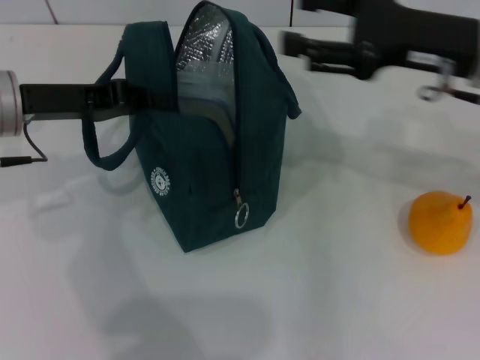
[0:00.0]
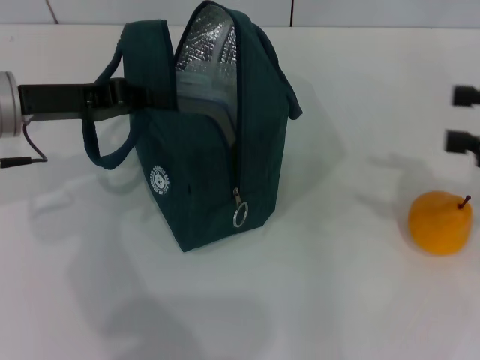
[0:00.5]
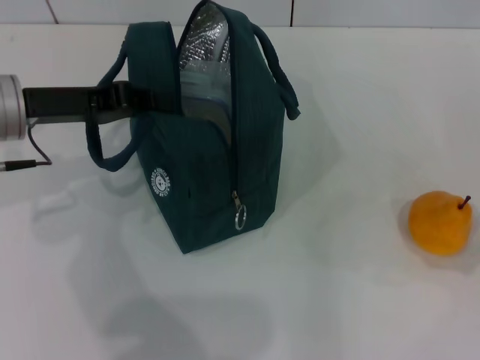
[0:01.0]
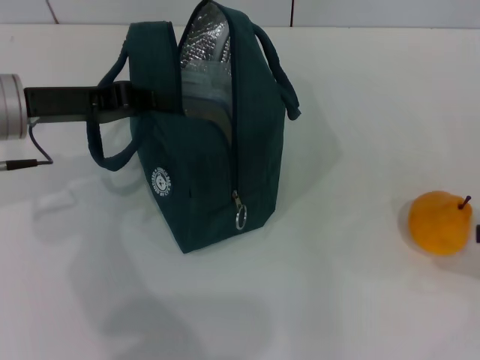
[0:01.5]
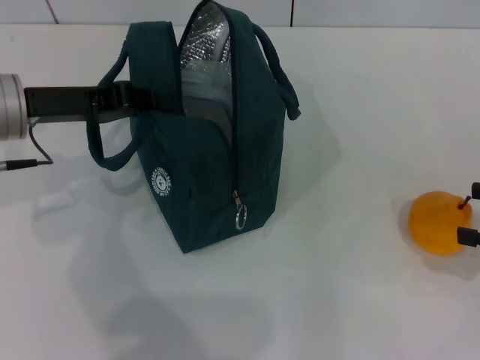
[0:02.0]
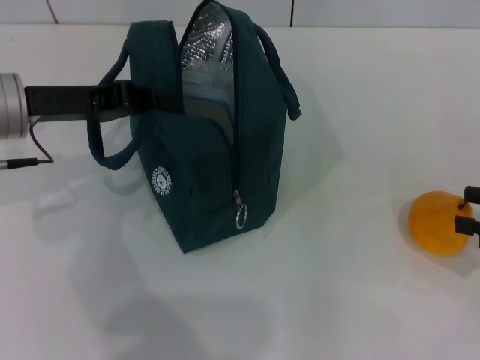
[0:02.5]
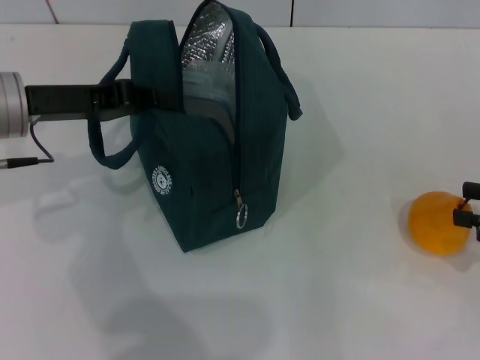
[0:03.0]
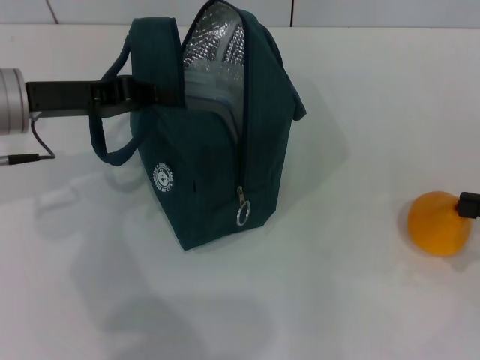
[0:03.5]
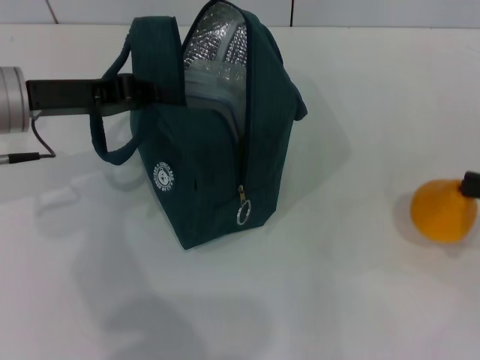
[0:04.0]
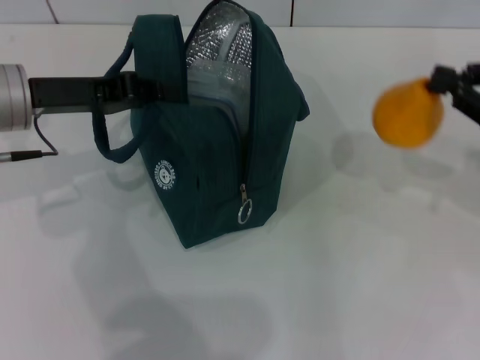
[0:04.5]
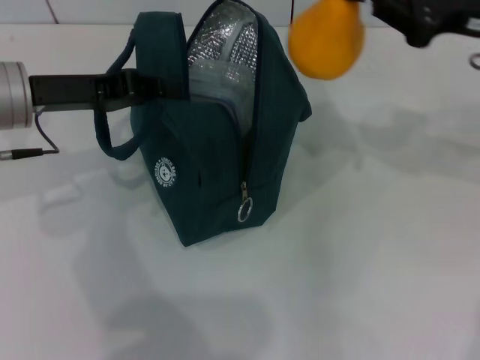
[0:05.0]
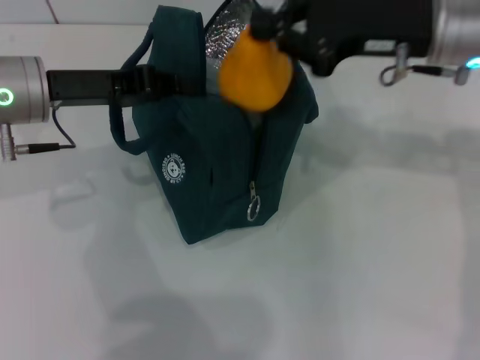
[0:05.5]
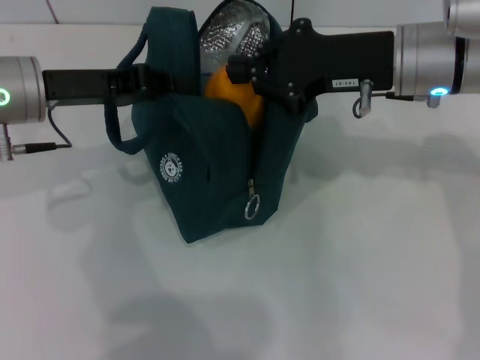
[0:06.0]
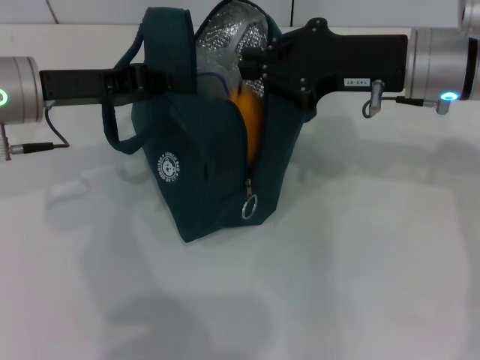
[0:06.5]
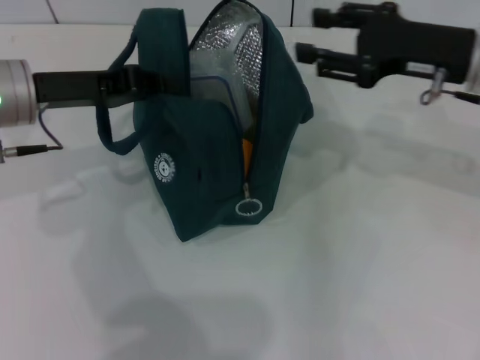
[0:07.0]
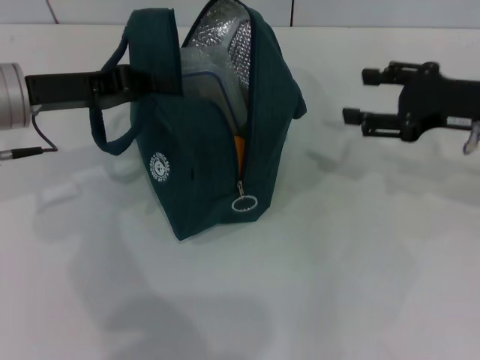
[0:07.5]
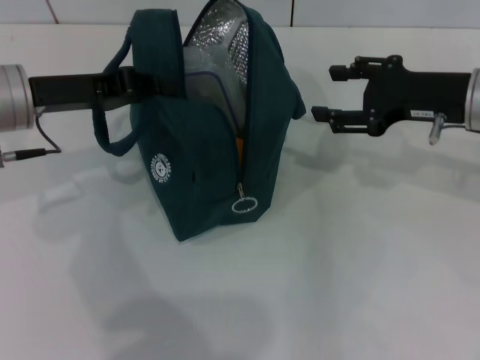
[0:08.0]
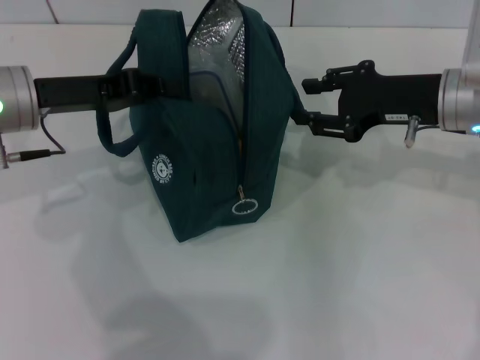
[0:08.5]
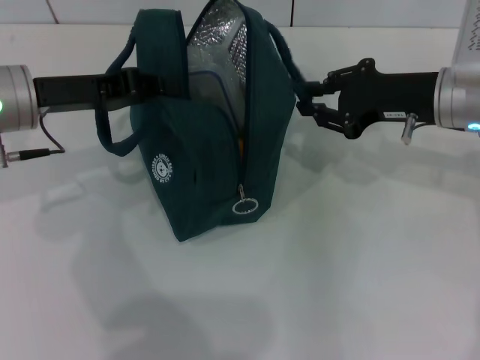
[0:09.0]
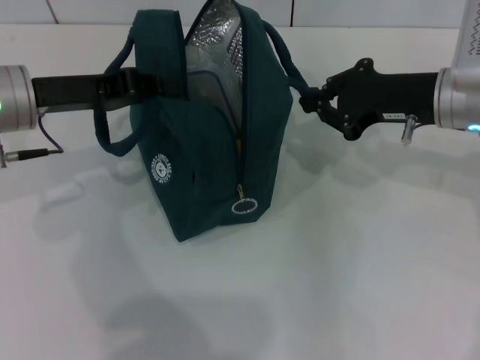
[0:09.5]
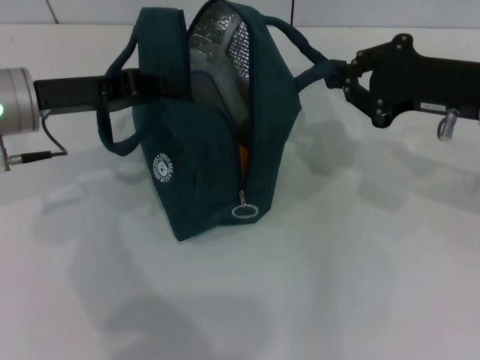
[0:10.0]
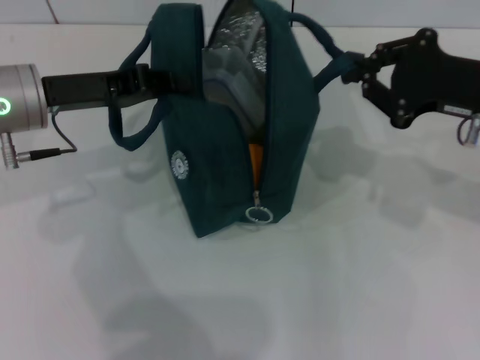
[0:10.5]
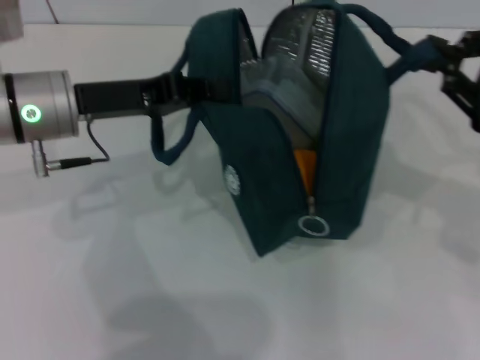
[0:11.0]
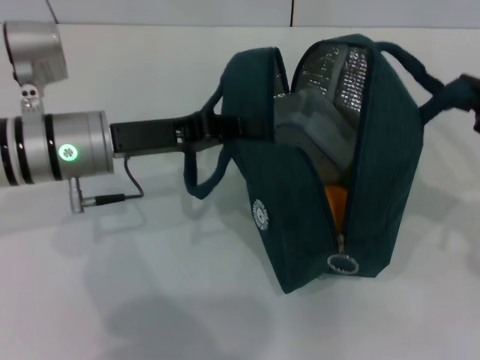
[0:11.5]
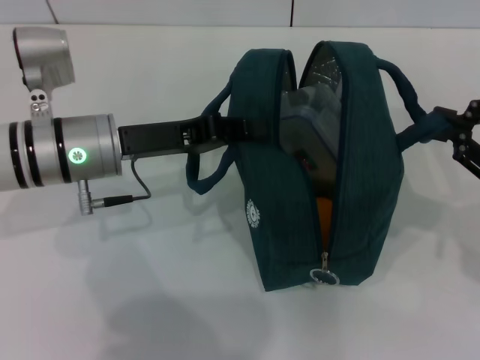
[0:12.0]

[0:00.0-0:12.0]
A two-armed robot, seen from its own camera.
Step, 0.0 to 3.5 s: Grab the pear with your right hand.
0.0 to 2.0 s: The right gripper is displaced to the right, backward and downward by about 20 cm.
2.0 to 4.0 s: The right gripper closes.
4.0 to 6.0 s: The right gripper heads to the left and forward, covering roughly 25 cm.
6.0 to 8.0 s: The right gripper travels to the right by roughly 10 cm, and opens.
8.0 to 10.0 s: The right gripper closes its fingers.
10.0 to 12.0 s: The left gripper travels to the right by some 5 cm. The right gripper shifts approximately 10 cm to the right and backward.

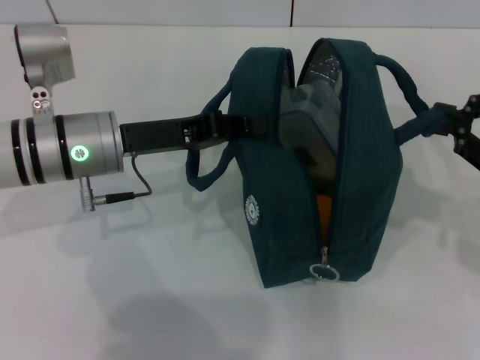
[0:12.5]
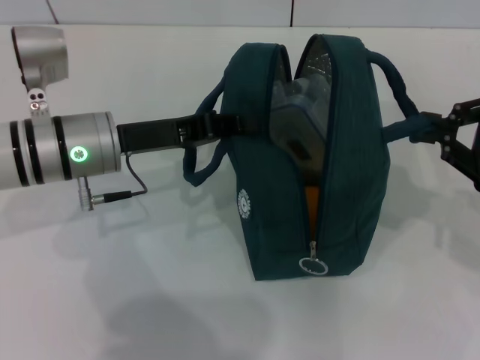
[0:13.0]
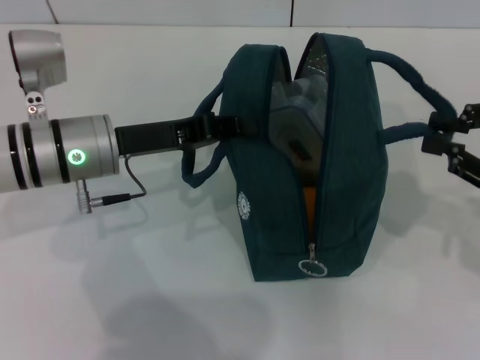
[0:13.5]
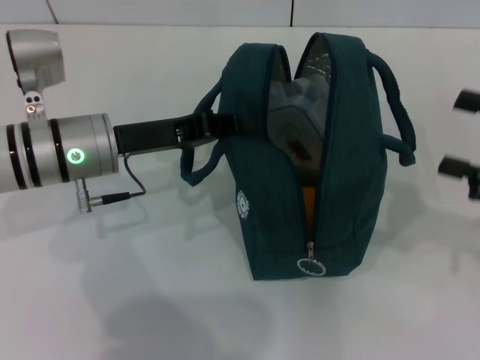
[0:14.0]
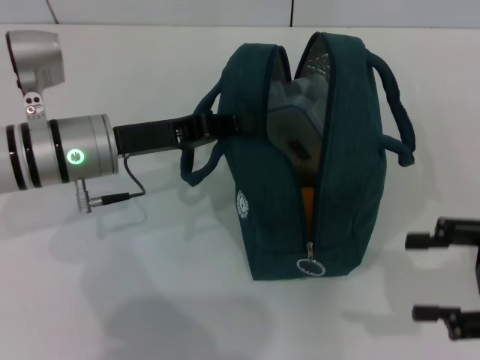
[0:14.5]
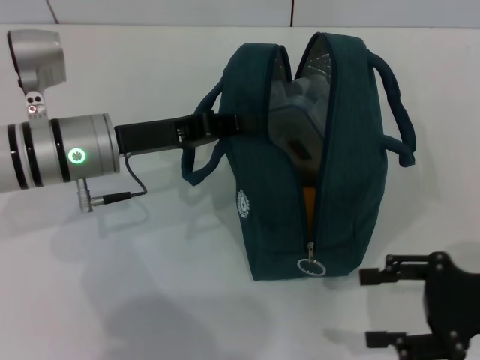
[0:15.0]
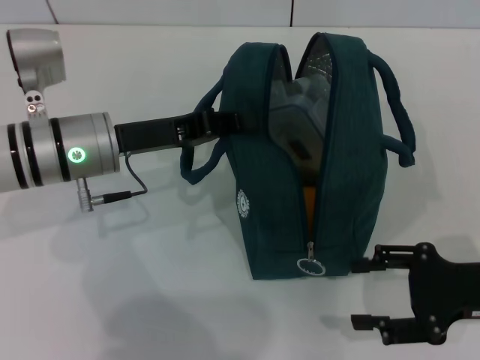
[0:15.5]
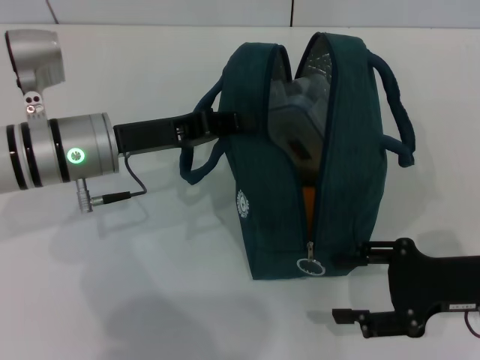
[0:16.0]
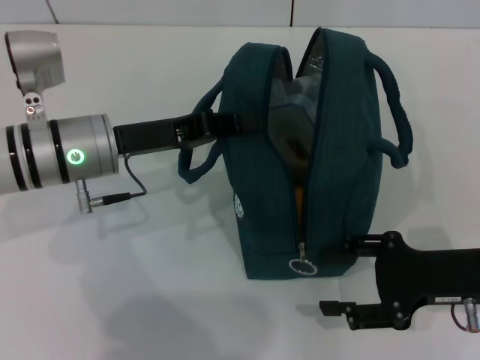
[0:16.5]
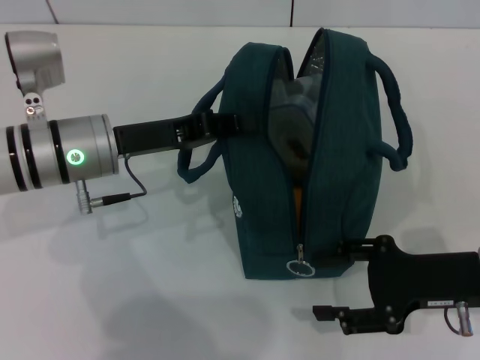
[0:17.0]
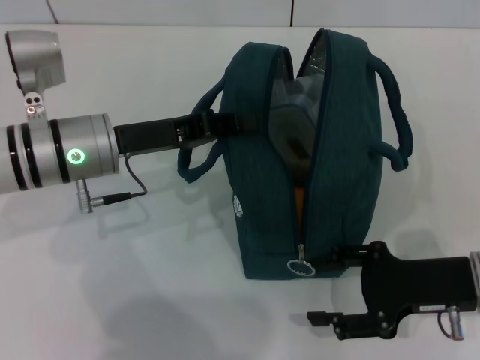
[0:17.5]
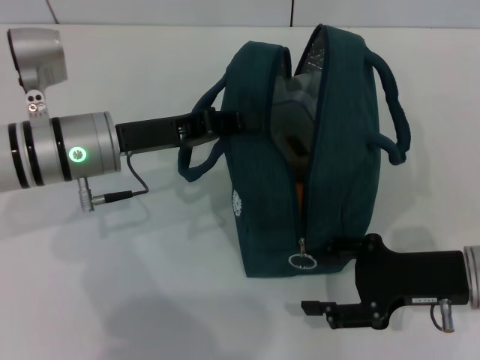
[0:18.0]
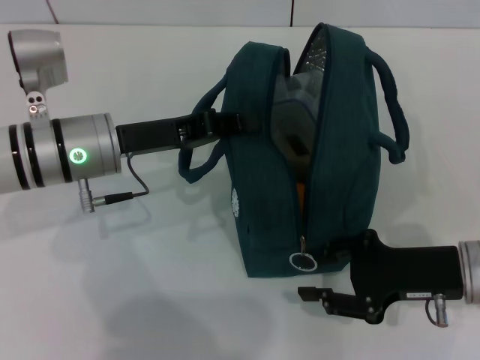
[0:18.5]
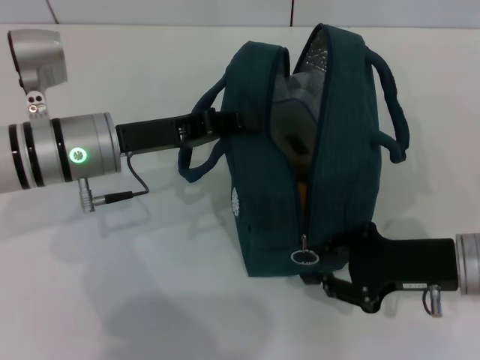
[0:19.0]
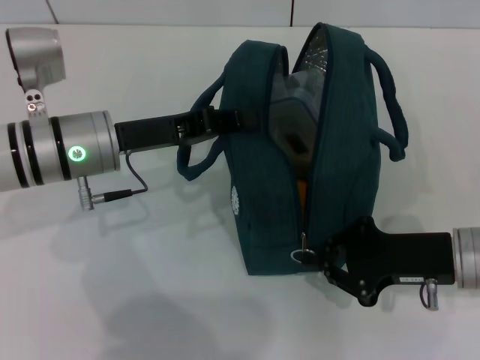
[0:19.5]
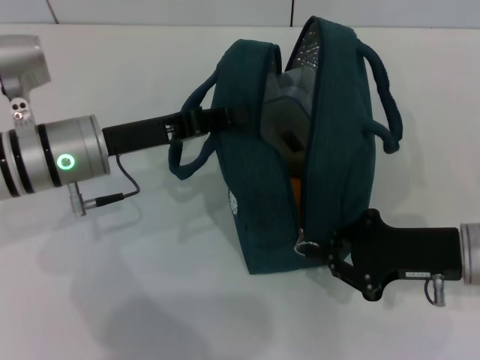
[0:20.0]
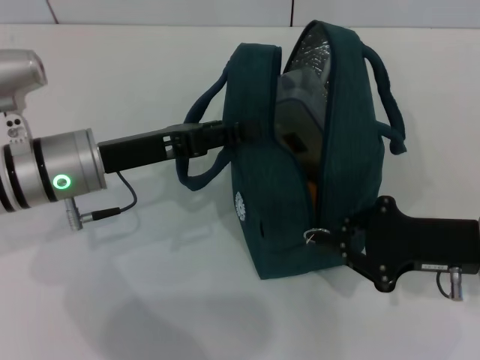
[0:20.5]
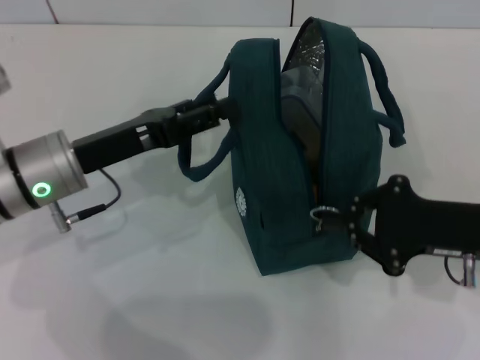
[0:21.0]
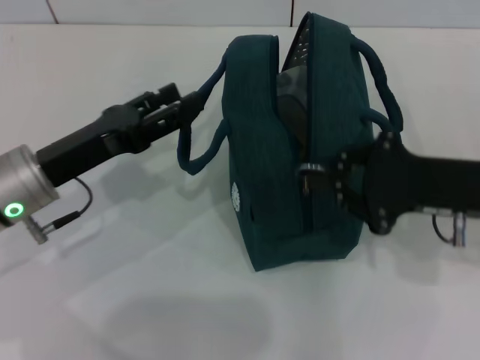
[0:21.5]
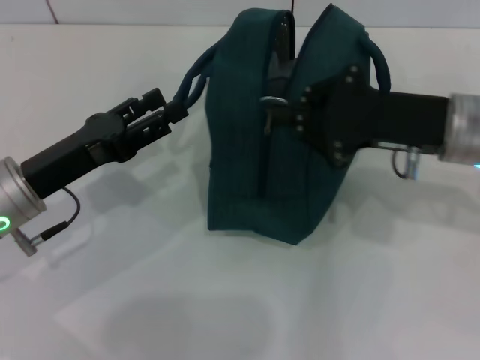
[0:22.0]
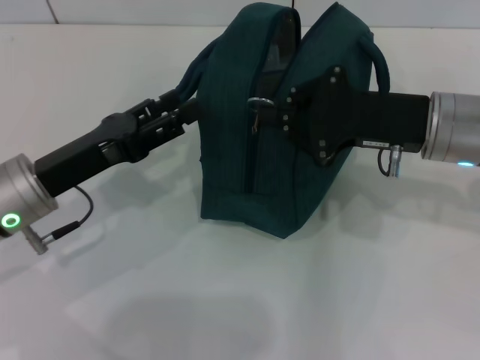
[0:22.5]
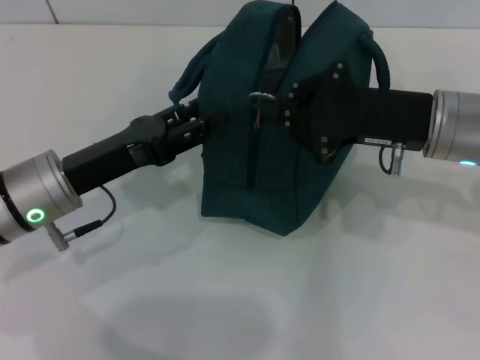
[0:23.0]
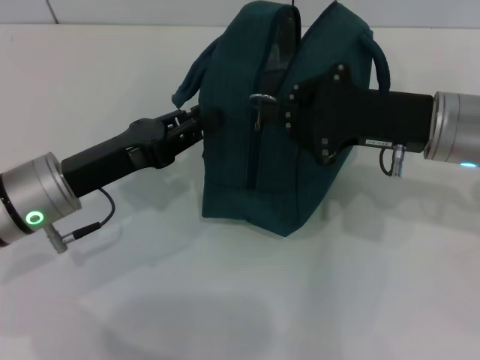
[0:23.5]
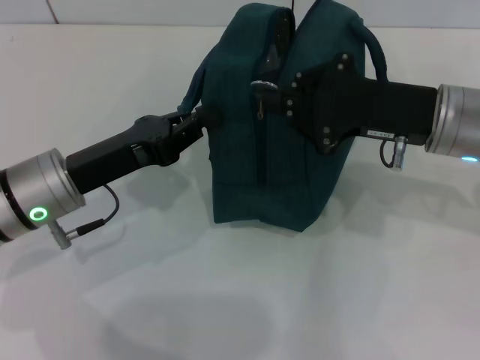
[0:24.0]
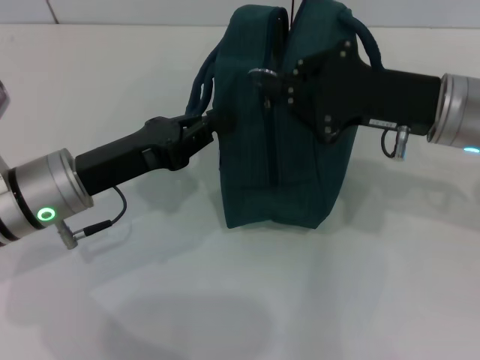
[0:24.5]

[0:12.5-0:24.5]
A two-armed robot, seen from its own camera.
Step, 14.0 to 21.0 s: Hold the lunch bag with your left hand.
12.5 to 14.5 s: The right gripper heads backward, covering roughly 5 cm, and opens.
14.5 to 16.5 s: The right gripper travels to the left and downward by about 10 cm.
16.5 to 18.5 s: There are only small adjustments of the grippers.
18.5 to 20.5 s: The right gripper closes up. The left gripper opens.
20.5 to 22.5 s: The right gripper goes some 10 cm upward, forward and to the left. Meanwhile the left gripper moves about 5 cm, and opens up.
22.5 to 24.5 s: The left gripper closes its fingers.

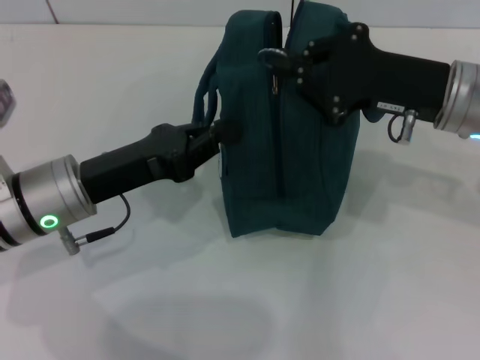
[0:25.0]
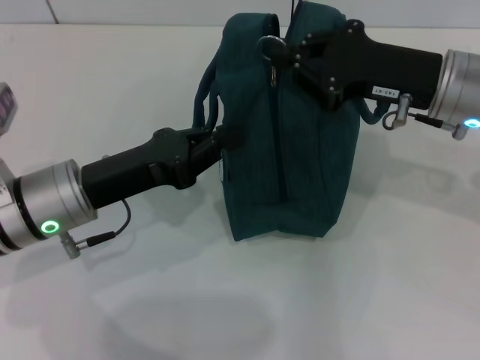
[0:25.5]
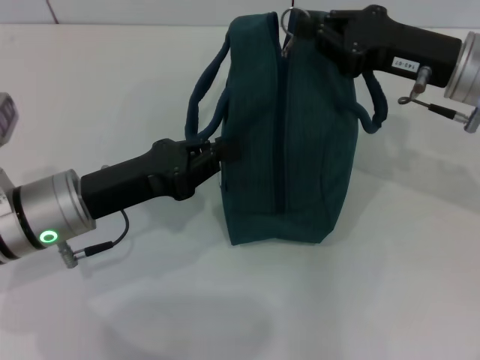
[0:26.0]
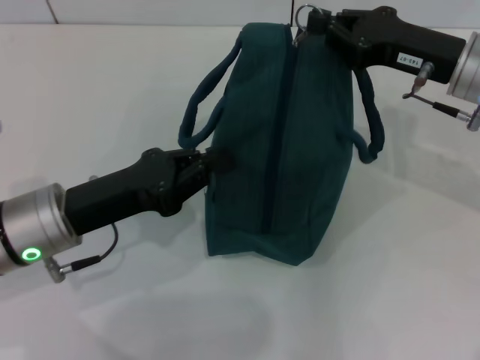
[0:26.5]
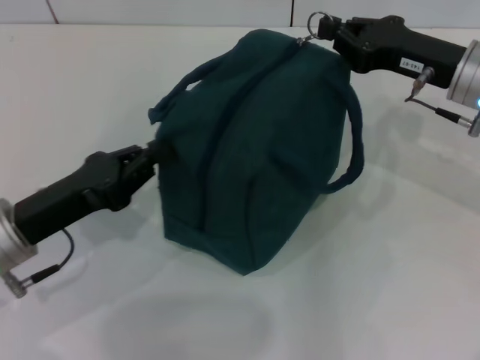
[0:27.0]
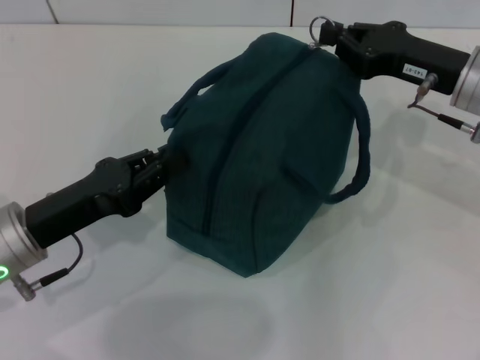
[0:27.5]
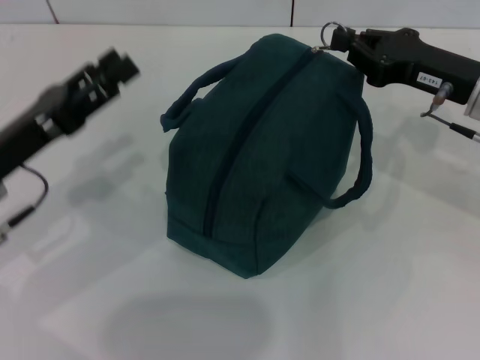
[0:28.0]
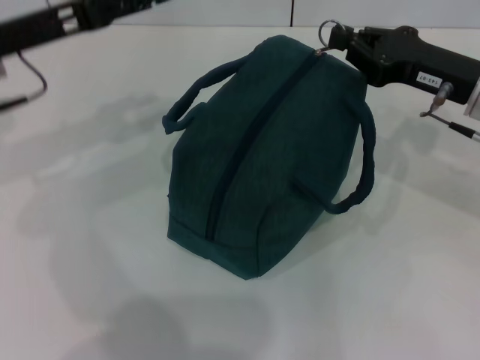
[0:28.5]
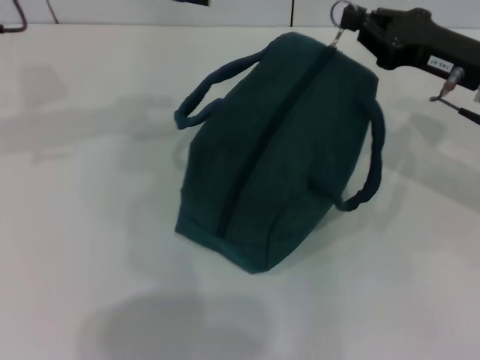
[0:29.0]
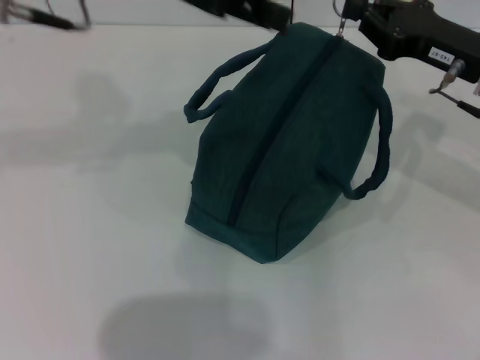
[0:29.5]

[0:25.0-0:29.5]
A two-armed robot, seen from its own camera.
25.0 to 27.0 s: The left gripper changes place by about 5 cm.
27.0 to 29.5 s: The left gripper moves upward, forward and to the right, roughly 30 cm, and opens up.
